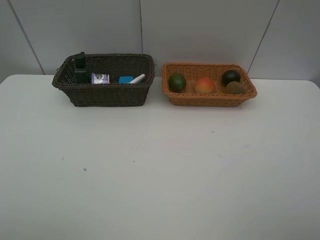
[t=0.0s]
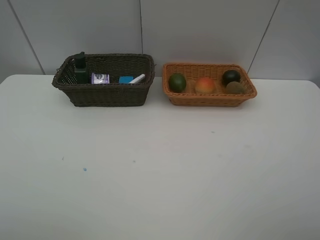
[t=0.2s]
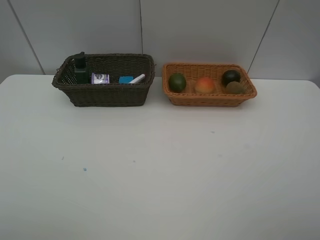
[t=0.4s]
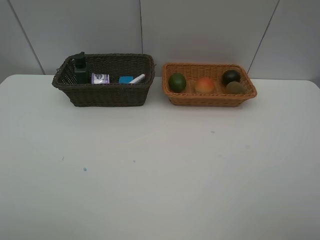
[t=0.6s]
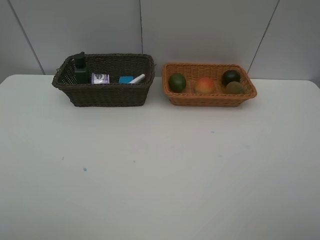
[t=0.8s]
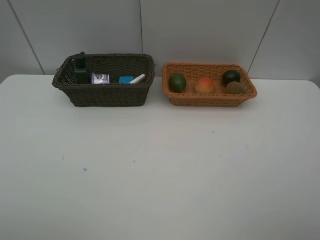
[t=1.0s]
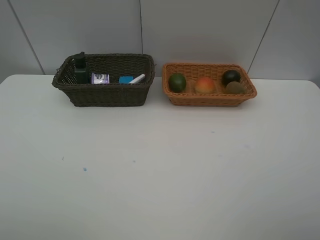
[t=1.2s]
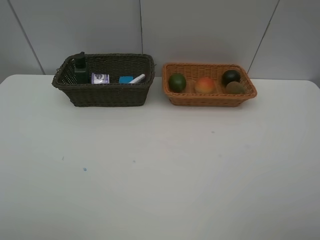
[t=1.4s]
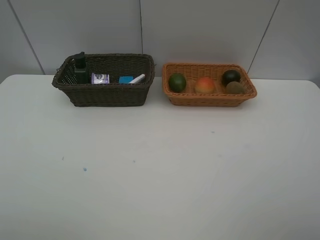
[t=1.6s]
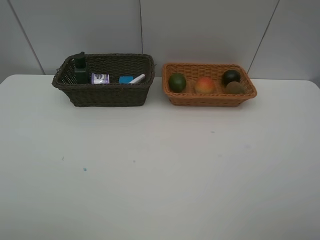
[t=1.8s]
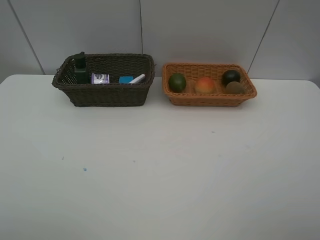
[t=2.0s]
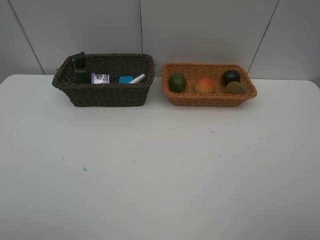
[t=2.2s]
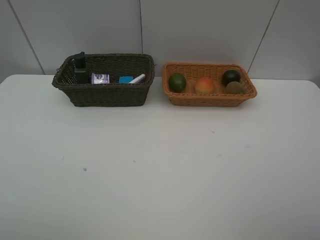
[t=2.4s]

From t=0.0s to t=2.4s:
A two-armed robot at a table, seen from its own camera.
Task of the whole recording: Place multiple objects separately in different baskets.
From t=0.0s to t=2.4s: Neither gripper changes place.
